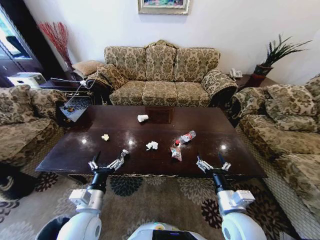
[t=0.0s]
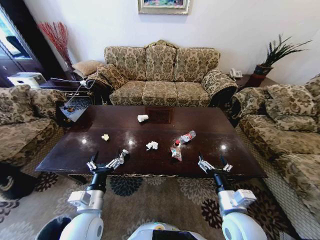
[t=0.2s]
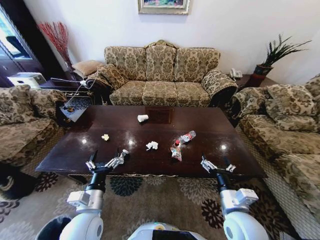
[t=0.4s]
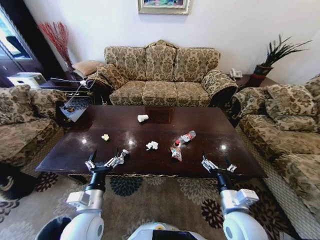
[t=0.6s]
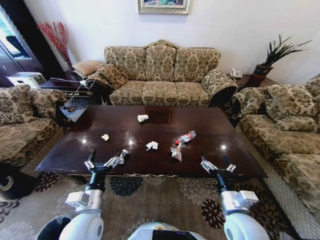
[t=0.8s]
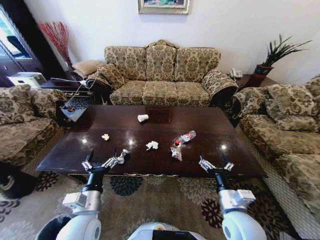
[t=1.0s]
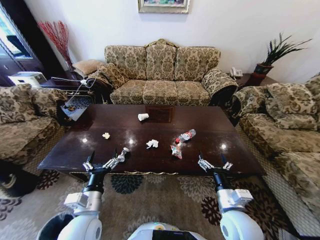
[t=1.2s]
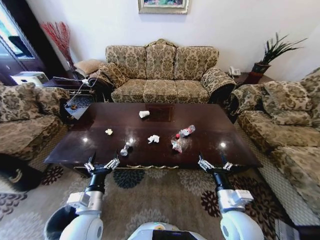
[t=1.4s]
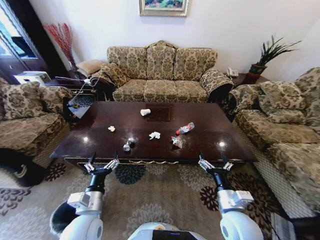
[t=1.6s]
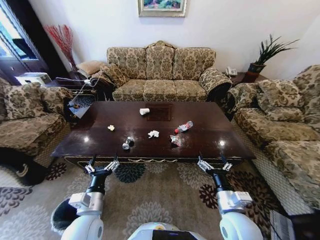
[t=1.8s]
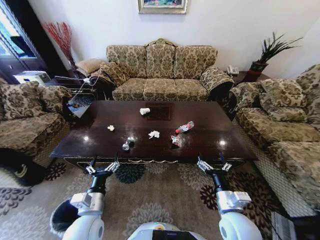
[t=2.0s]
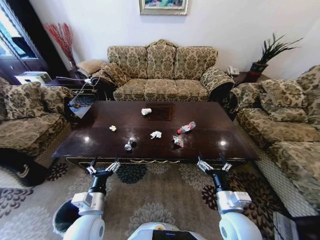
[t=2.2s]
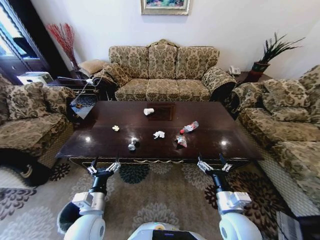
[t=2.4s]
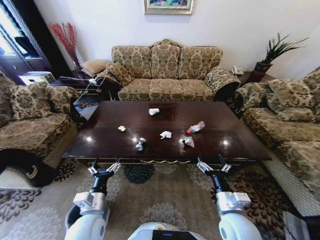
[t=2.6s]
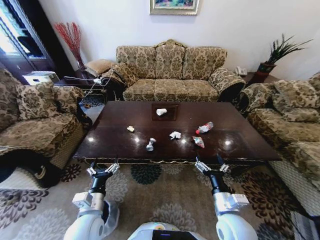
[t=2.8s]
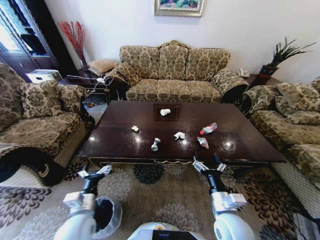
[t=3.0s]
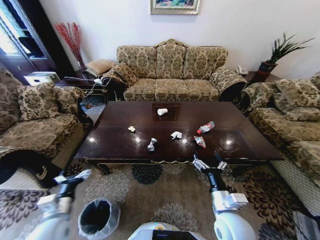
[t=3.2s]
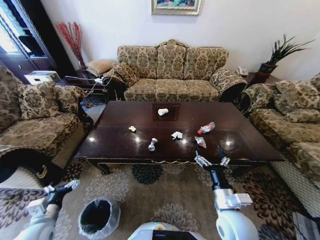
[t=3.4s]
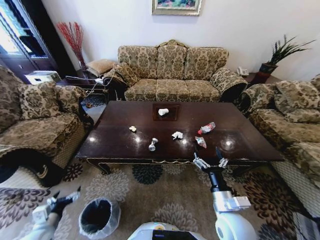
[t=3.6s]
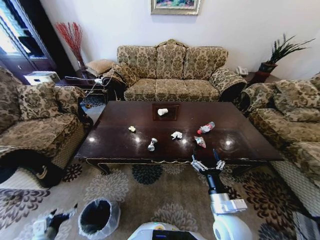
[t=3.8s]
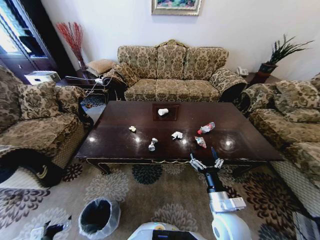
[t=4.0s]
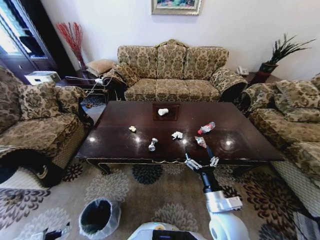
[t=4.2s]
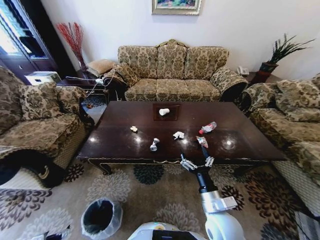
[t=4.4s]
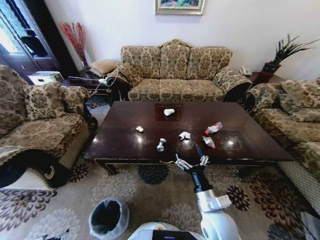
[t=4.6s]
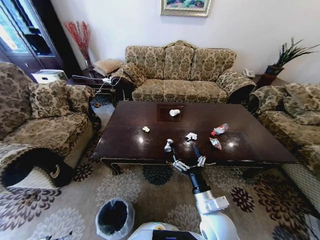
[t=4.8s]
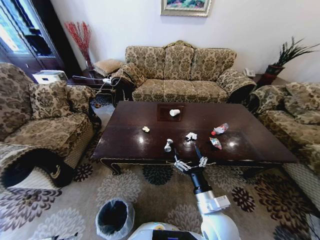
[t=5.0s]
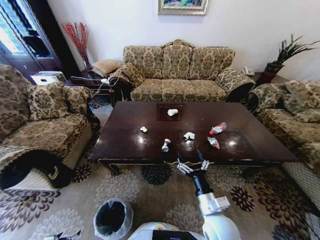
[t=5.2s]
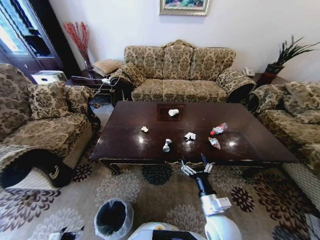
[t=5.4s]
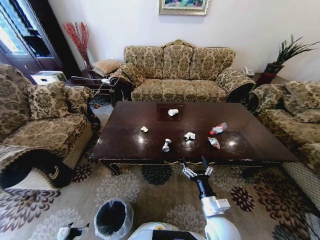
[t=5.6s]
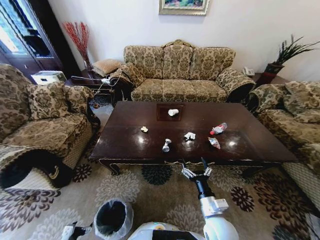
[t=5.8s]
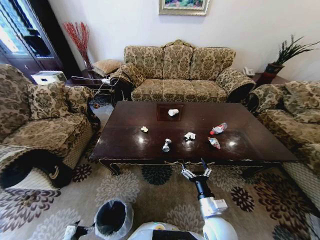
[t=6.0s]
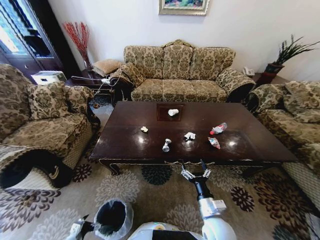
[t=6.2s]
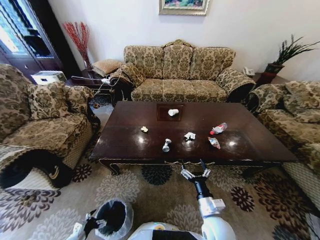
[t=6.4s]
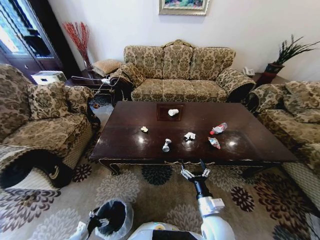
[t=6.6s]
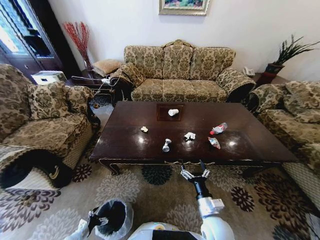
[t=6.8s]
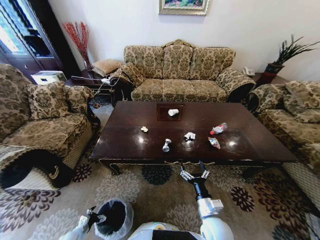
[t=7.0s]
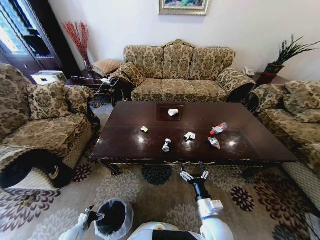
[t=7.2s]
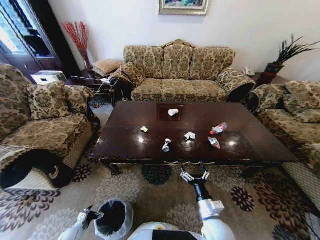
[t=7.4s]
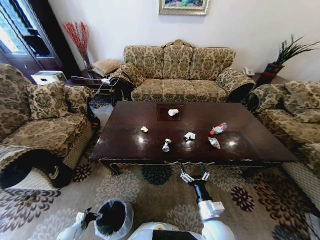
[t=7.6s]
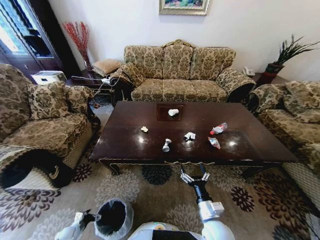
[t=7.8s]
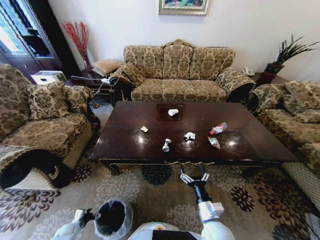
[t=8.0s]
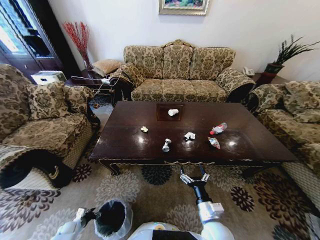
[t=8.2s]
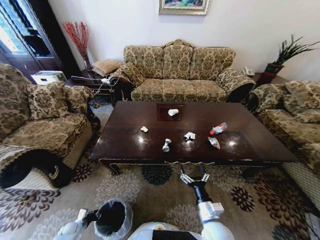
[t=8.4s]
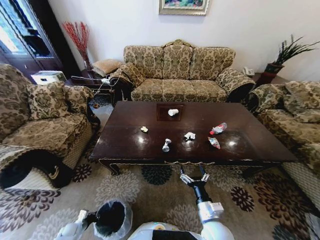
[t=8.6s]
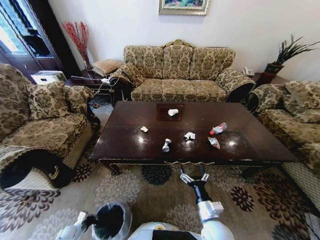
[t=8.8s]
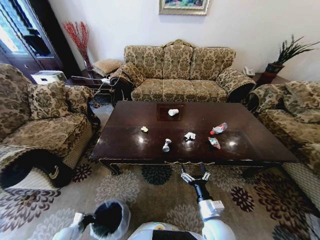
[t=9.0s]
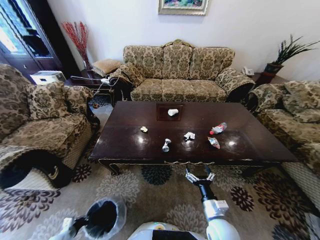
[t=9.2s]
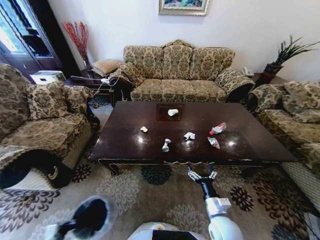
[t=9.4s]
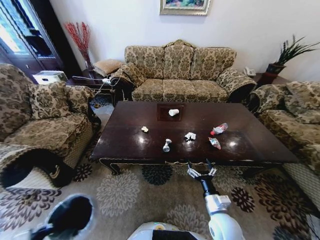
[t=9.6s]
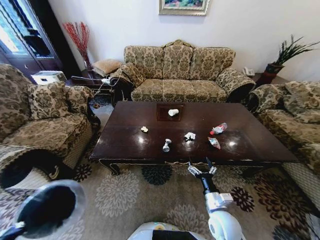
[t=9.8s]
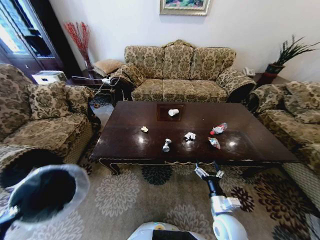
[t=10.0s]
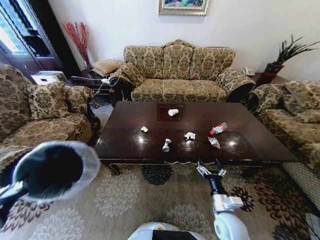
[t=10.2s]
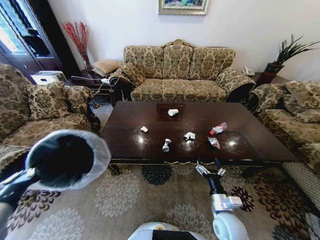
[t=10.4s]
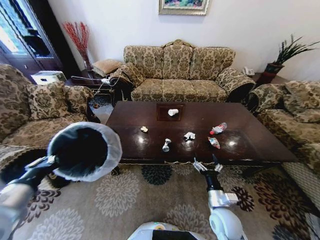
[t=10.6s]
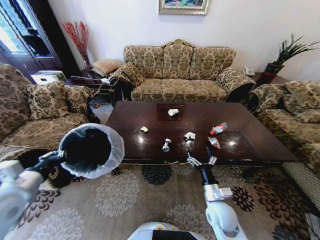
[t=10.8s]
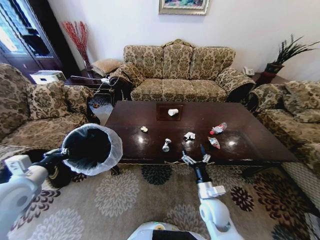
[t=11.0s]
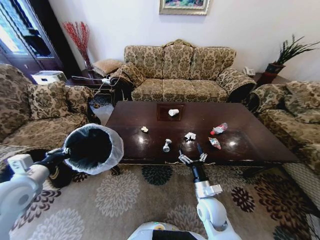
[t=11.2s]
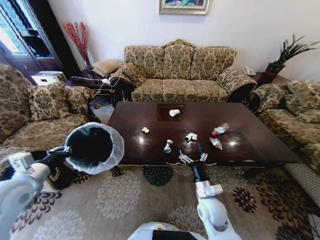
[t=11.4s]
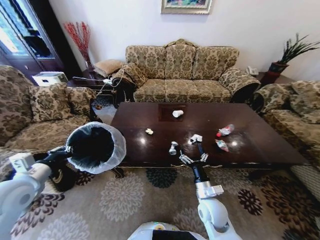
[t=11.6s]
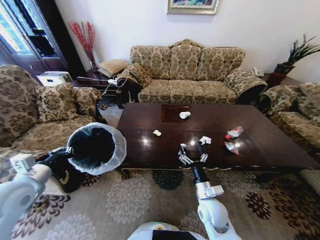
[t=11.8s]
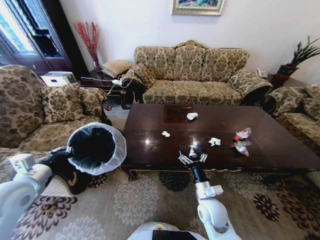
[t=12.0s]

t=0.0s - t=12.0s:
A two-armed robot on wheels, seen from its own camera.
Task of the whole recording: Move to the front of the table and place the trash on the table into the trash bin.
t=3.0s - t=4.4s: The left gripper travels to the left, downward and backward by roughly 35 cm.
t=4.4s - t=6.0s: The left gripper shifts approximately 10 cm downward and to the right. Meanwhile the right gripper goes about 5 cm downward.
t=6.0s - t=7.6s: The left gripper moves downward and forward, some 10 cm.
t=7.6s - t=9.0s: The left gripper closes up.
t=9.0s - t=10.4s: The left gripper is displaced upward by approximately 50 cm.
t=10.4s - t=12.0s: The right gripper changes place by approximately 5 cm, while the left gripper travels forward by some 10 cm.

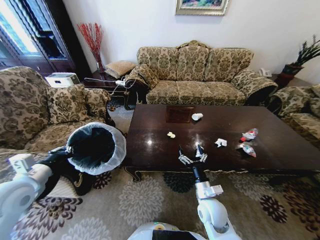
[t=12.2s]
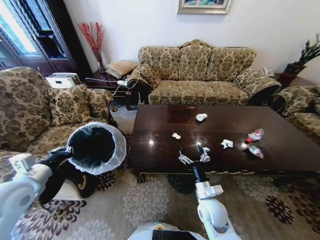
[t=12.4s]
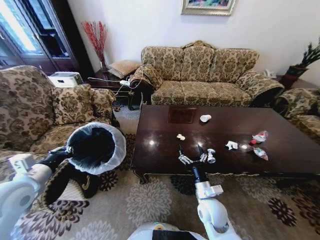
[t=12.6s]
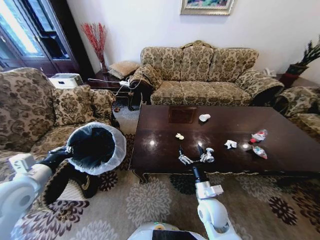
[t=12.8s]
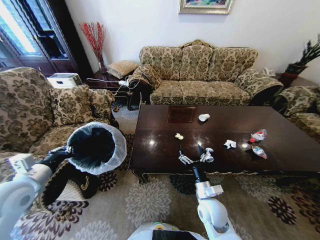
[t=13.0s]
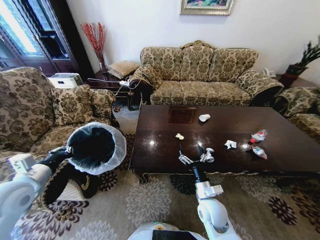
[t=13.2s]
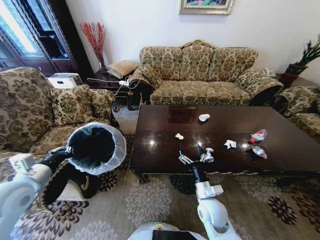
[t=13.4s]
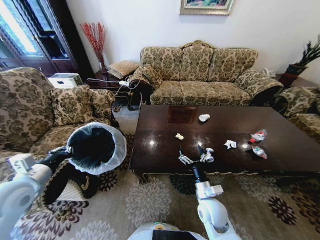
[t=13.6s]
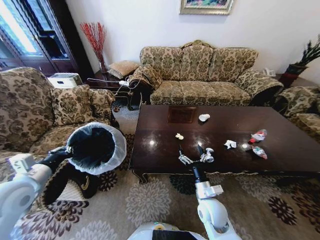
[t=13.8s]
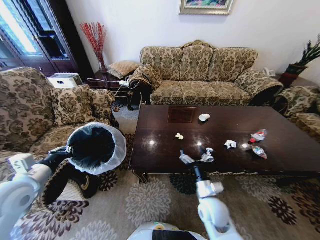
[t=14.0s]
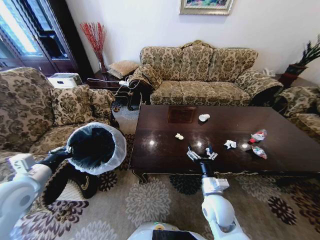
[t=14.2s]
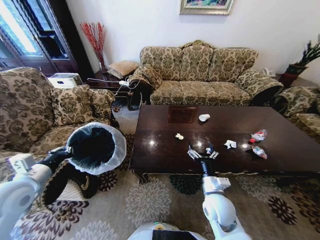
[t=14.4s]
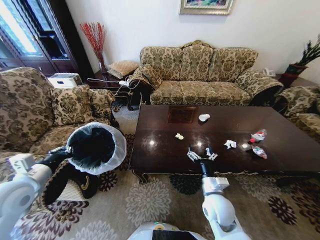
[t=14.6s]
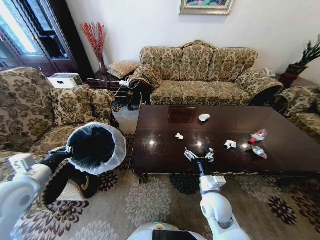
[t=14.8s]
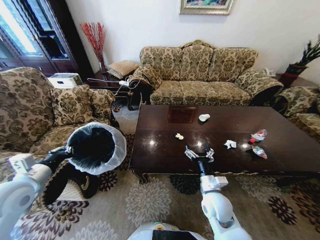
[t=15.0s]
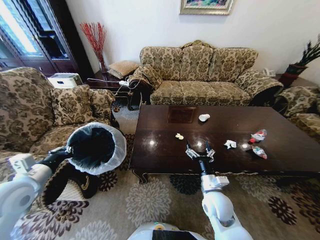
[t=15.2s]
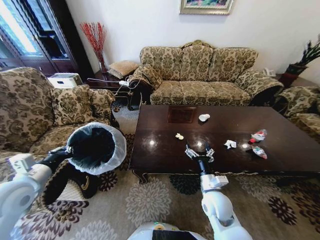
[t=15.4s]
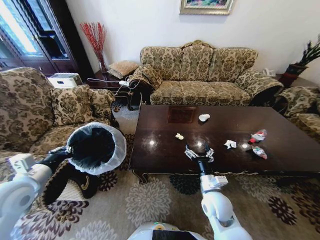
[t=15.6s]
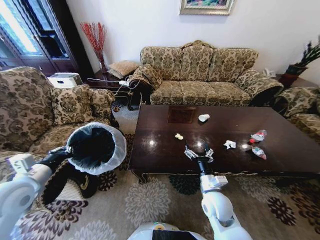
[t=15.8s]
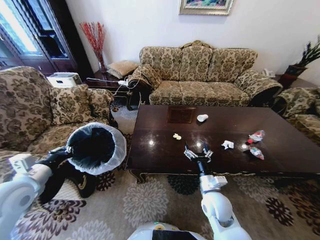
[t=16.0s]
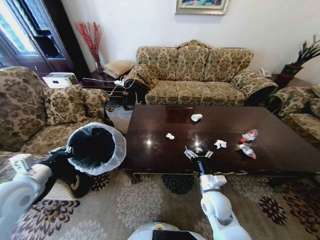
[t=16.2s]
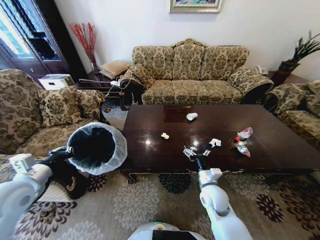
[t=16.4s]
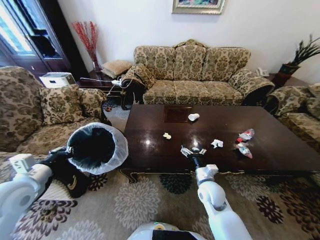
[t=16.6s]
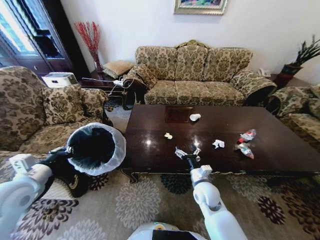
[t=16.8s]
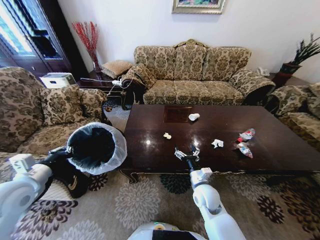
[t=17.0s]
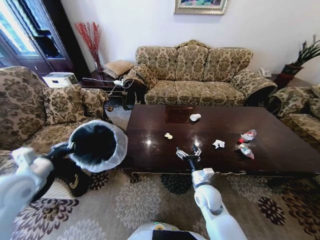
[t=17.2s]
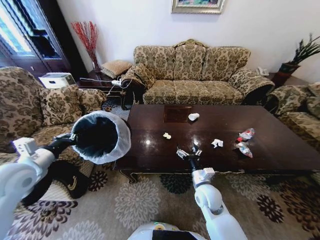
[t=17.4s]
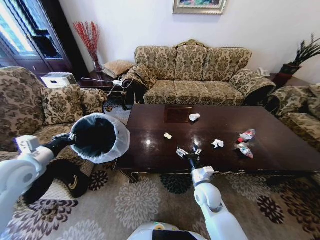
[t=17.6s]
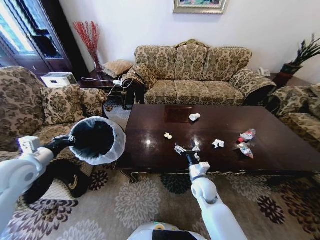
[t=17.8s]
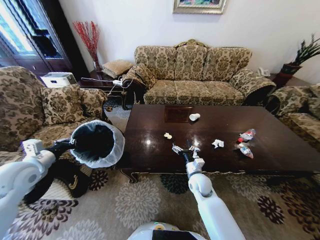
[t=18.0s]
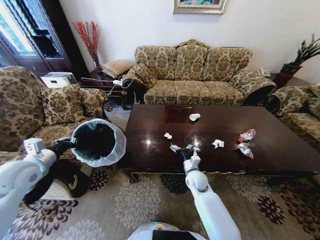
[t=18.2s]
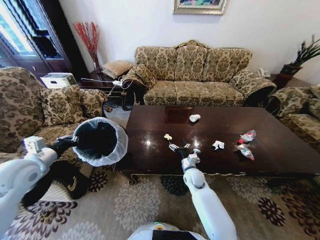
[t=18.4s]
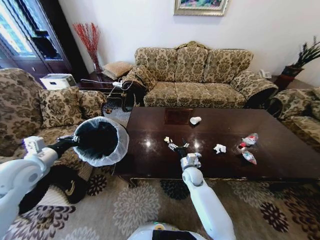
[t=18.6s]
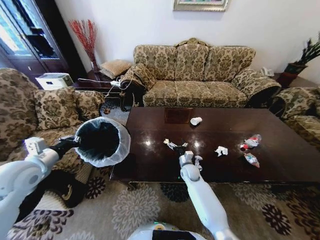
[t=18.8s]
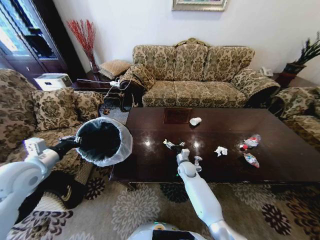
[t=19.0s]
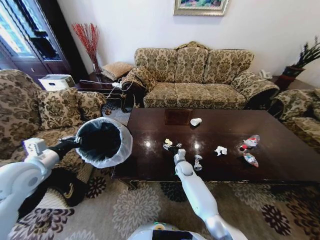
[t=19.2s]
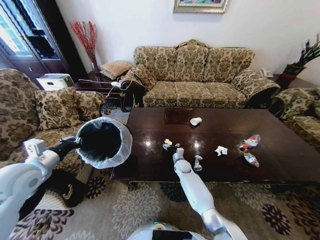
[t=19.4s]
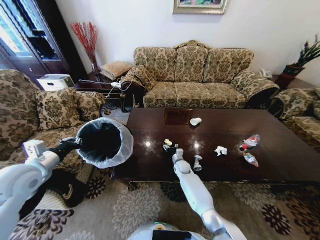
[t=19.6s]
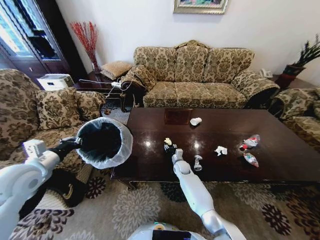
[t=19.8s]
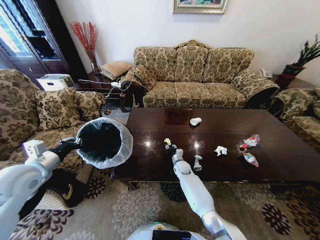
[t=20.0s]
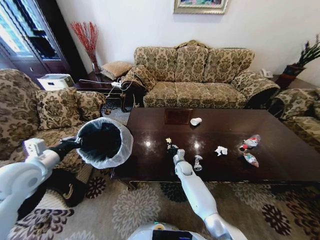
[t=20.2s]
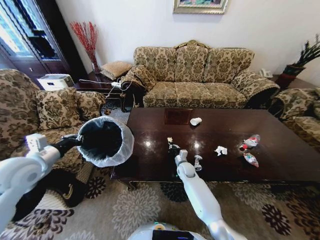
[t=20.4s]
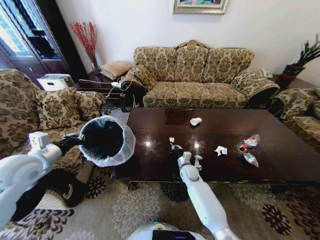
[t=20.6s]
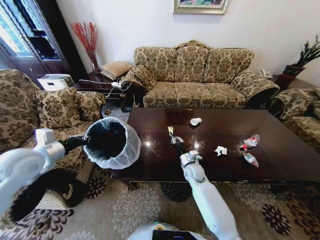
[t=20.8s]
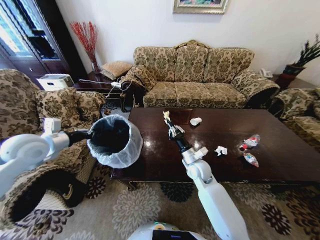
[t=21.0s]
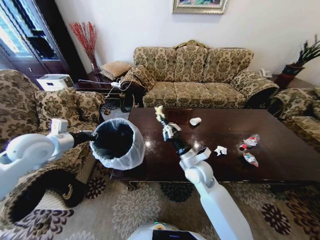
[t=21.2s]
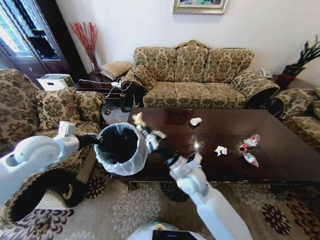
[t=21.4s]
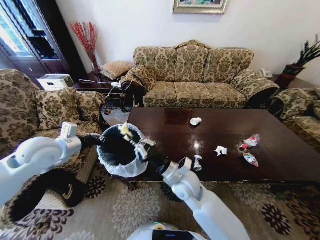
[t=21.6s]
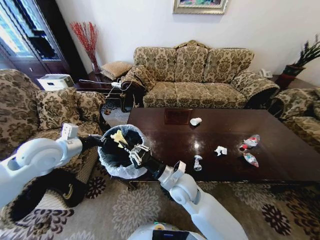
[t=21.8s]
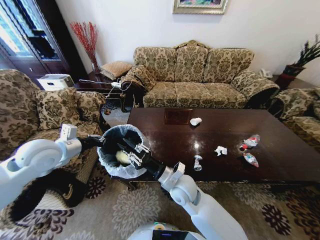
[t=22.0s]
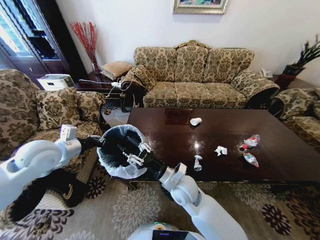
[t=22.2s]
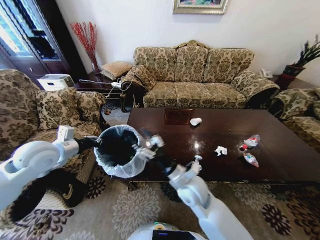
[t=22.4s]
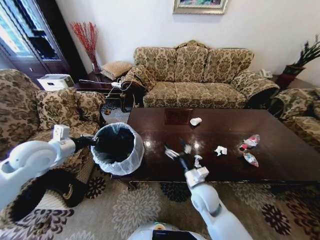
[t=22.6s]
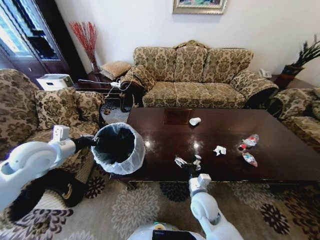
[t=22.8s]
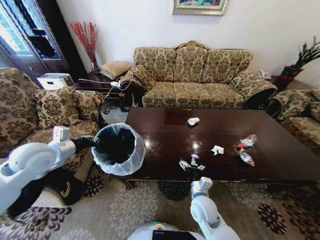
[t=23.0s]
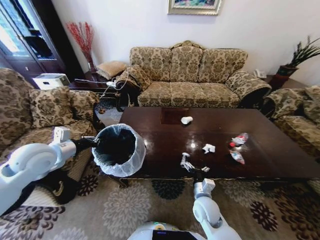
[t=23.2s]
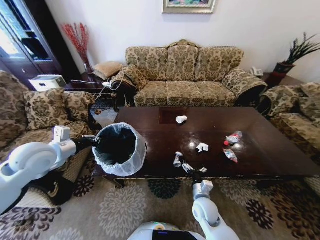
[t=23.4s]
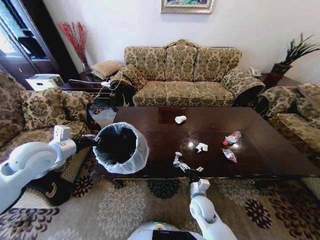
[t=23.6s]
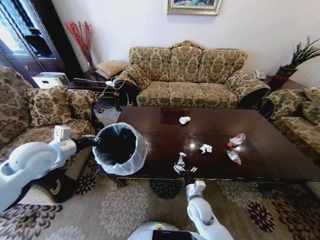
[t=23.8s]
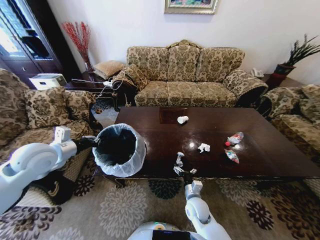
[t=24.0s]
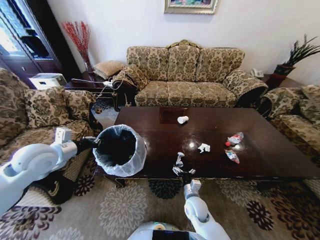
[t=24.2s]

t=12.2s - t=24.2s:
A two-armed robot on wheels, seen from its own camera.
Task of the whole recording: Move to the front of the table and place the trash on the table into the trash bin.
t=13.8s - t=15.2s: The grippers stay close to where they were, moving slightly.
t=15.2s - t=16.6s: The right gripper shifts by some 5 cm.
t=16.6s - t=18.2s: The grippers both shift forward by roughly 5 cm.
t=18.2s - t=19.8s: The right gripper goes about 15 cm forward and downward, and closes.
t=19.8s - t=21.2s: The right gripper is displaced upward and backward by some 25 cm, and closes its fingers; the left gripper shifts roughly 10 cm forward.
t=21.2s - t=22.6s: The right gripper shifts approximately 10 cm backward and downward, travels to the left and back again, roughly 5 cm each way, and opens.
t=22.6s - t=24.2s: The right gripper goes roughly 15 cm downward.
